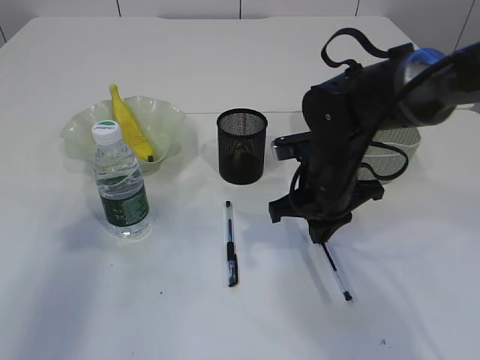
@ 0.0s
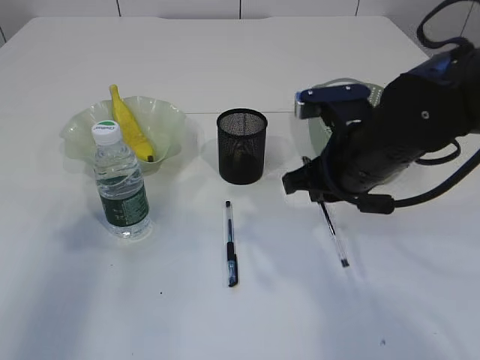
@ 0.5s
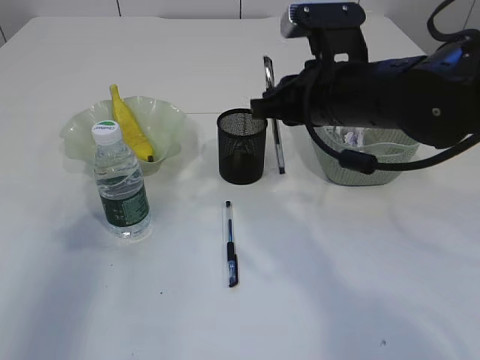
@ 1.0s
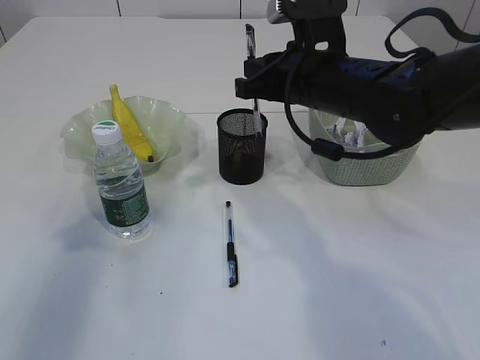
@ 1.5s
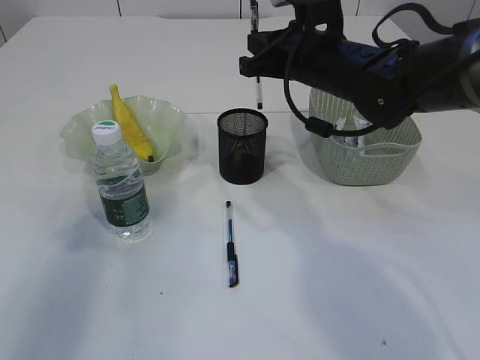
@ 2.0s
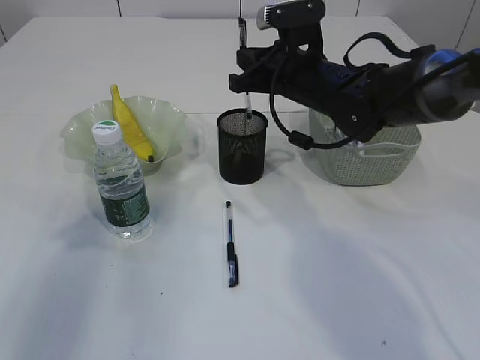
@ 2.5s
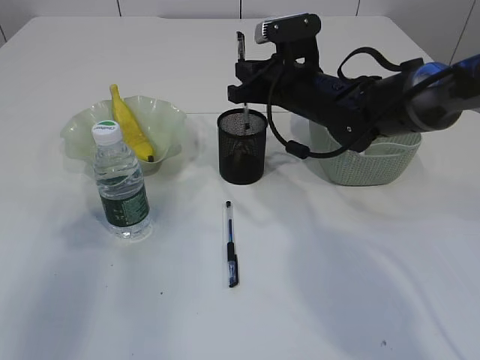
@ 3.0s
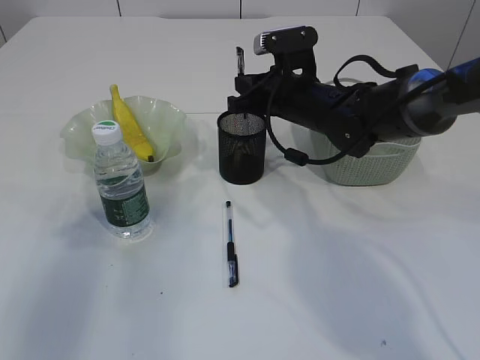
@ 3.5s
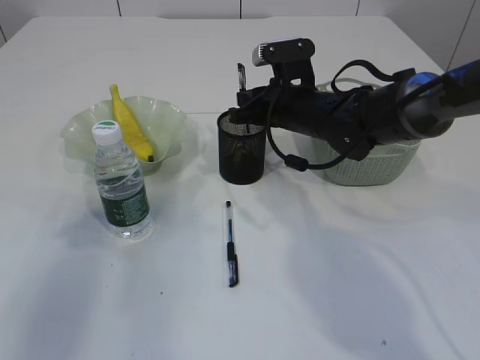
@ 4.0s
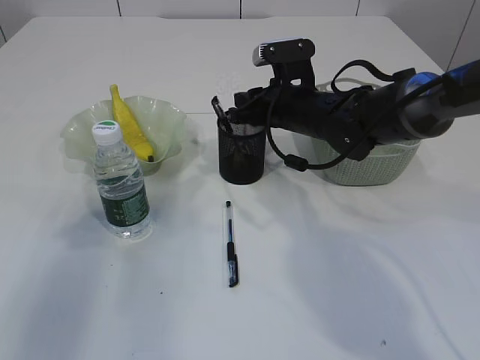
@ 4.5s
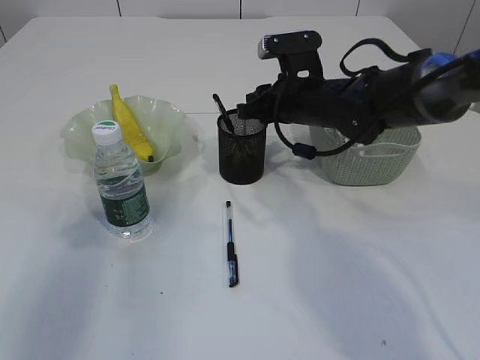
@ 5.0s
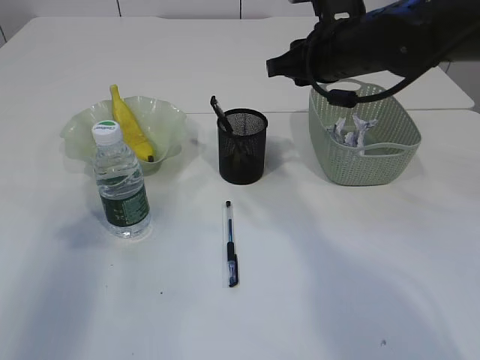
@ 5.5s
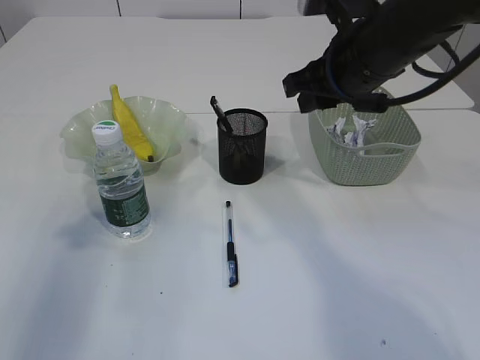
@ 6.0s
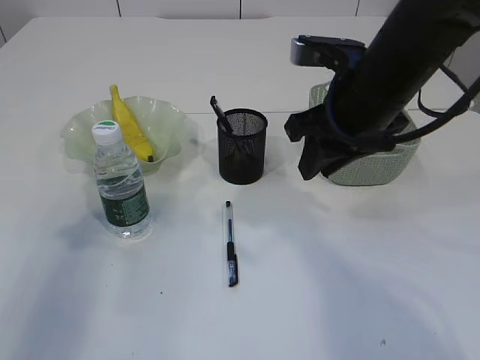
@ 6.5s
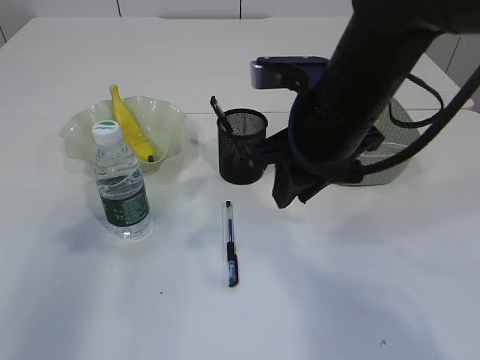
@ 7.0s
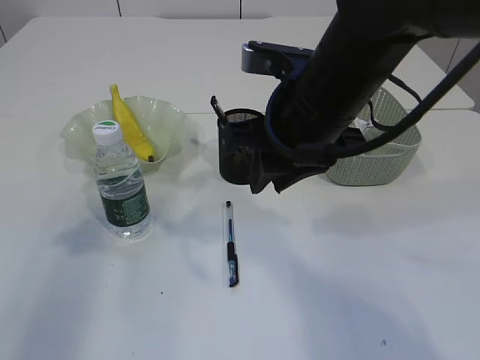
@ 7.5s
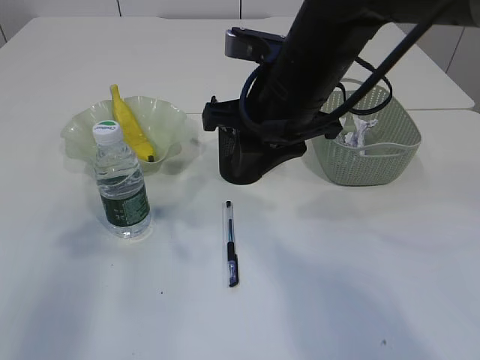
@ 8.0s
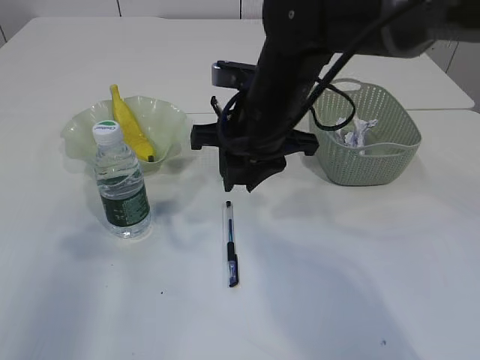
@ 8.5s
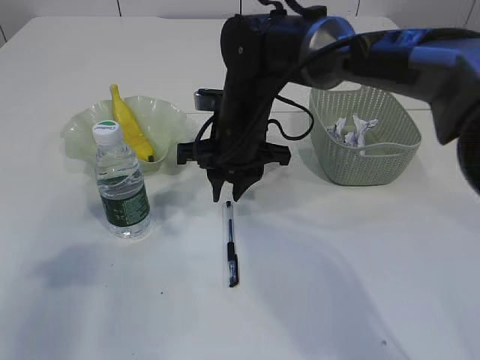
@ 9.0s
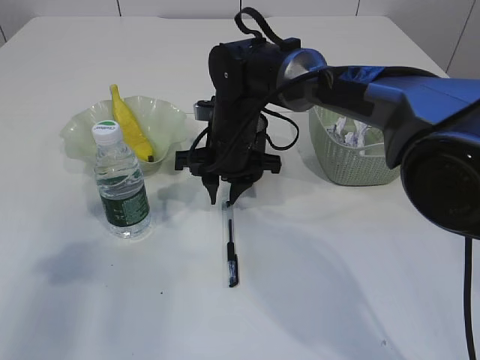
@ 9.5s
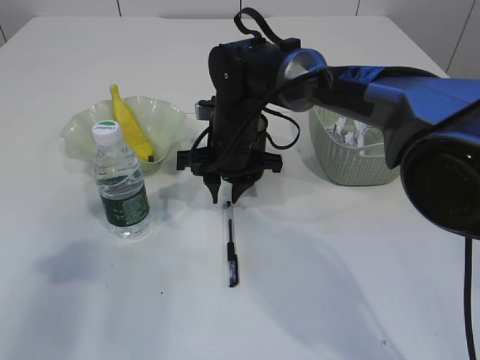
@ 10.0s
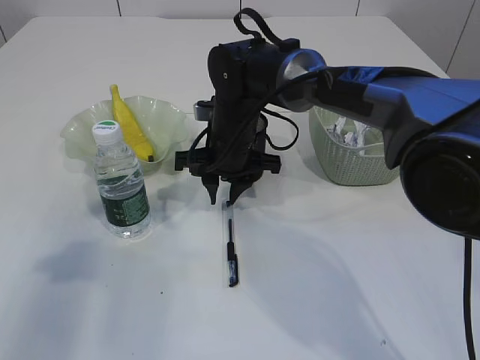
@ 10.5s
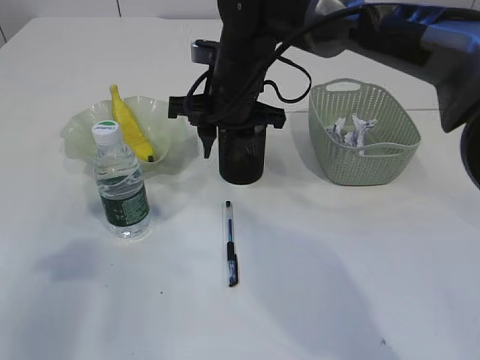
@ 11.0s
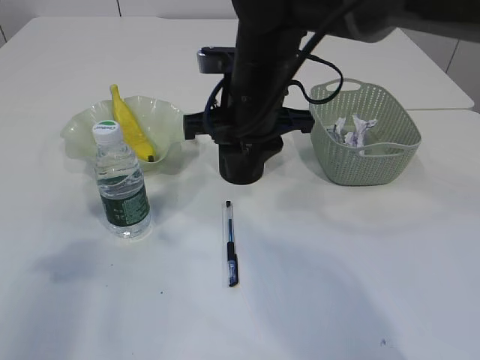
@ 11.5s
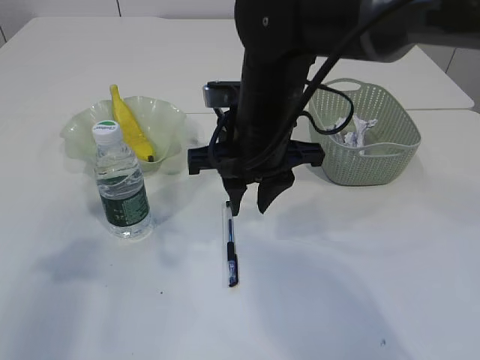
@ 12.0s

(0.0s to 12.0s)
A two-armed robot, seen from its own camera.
Step, 0.5s - 5.0s: Place the pen into the pen holder.
0.0s - 2.0s: The right gripper moves upward and forward, some 10 cm.
2.0s - 4.0s: The right gripper shifts roughly 10 cm downward.
4.0s - 6.0s: The right gripper is displaced upward and backward by approximately 15 cm.
6.0s - 8.0s: The right gripper moves to the left, roughly 10 cm.
8.0s - 10.0s: The right gripper is displaced downward and forward by some 15 cm.
10.0s - 12.0s: The right gripper moves backward and upward, approximately 10 cm.

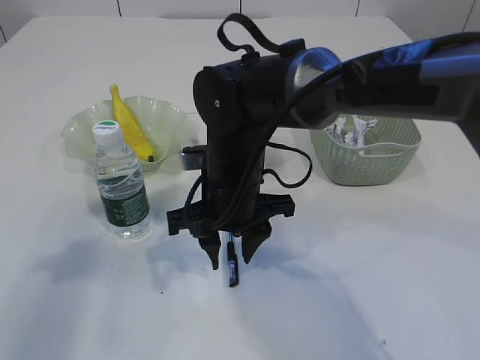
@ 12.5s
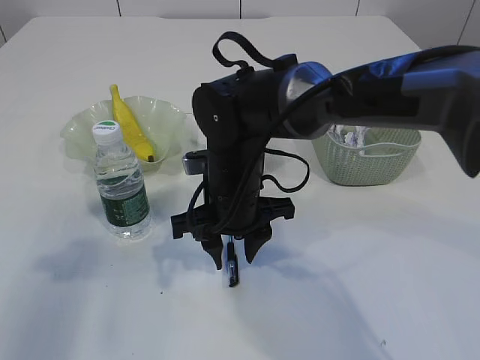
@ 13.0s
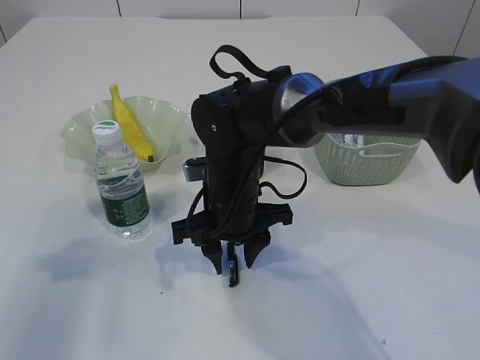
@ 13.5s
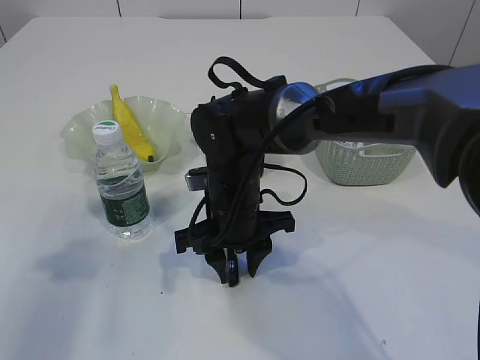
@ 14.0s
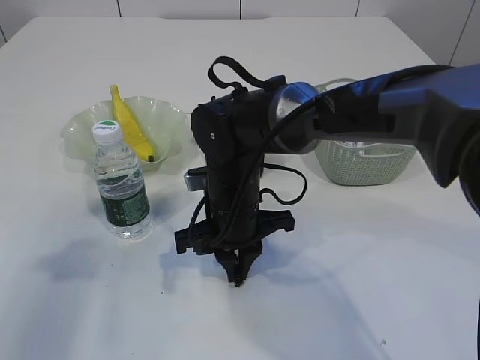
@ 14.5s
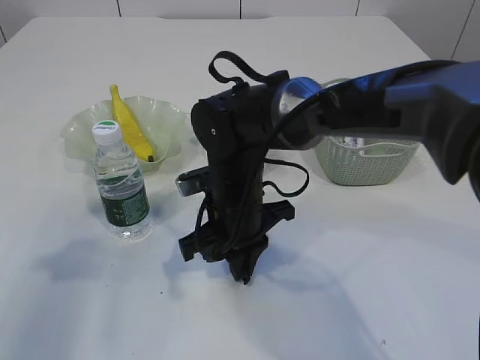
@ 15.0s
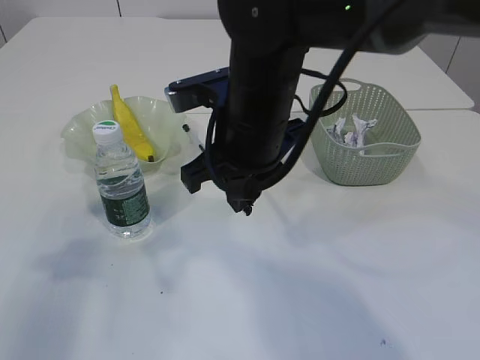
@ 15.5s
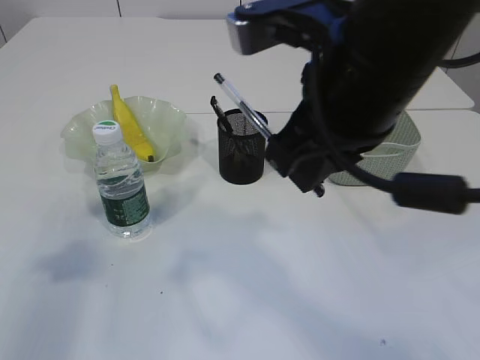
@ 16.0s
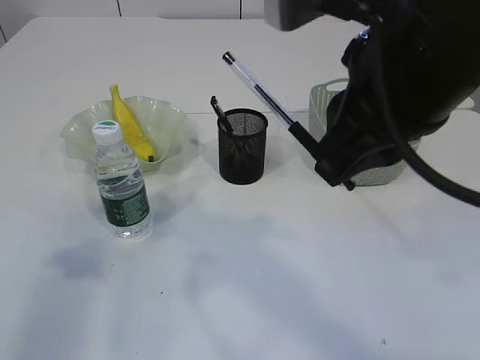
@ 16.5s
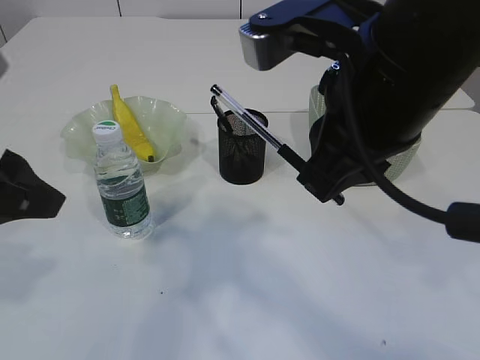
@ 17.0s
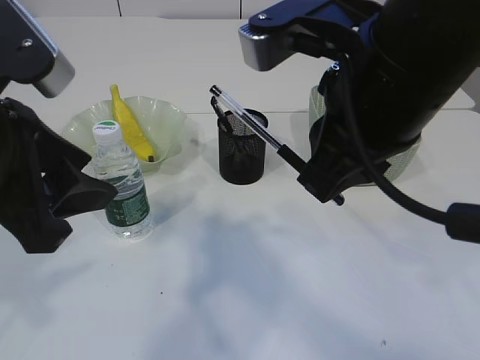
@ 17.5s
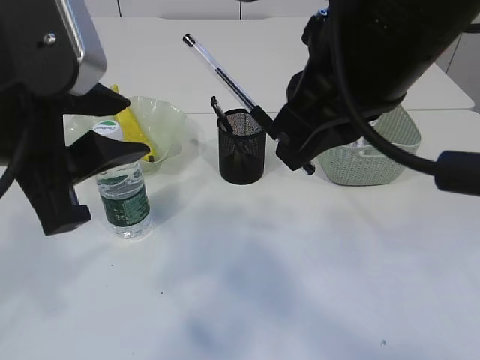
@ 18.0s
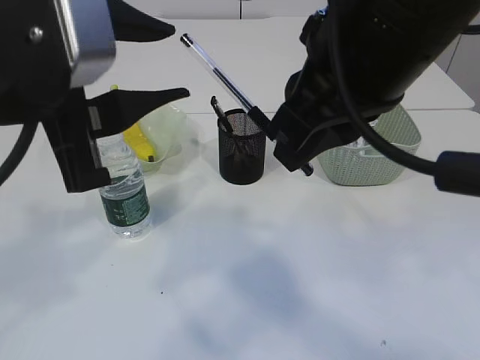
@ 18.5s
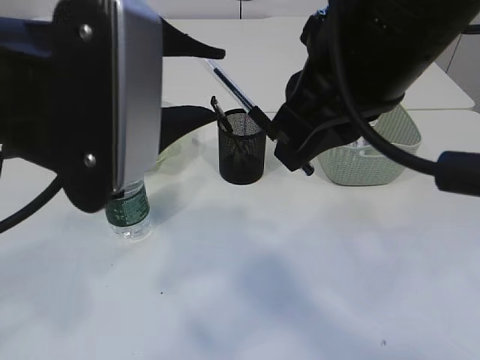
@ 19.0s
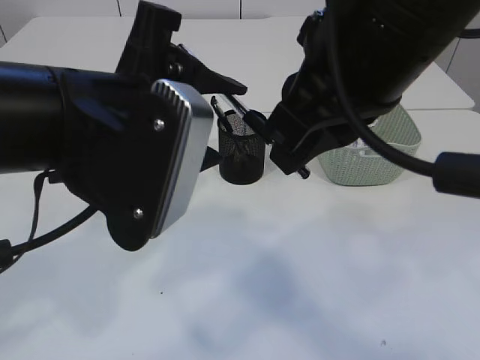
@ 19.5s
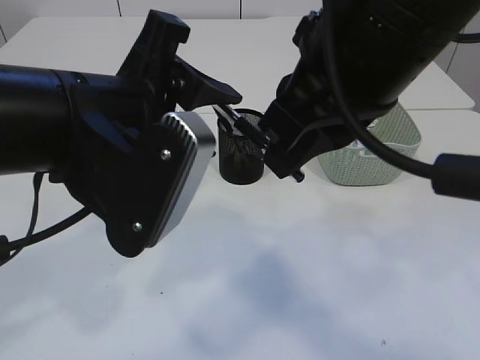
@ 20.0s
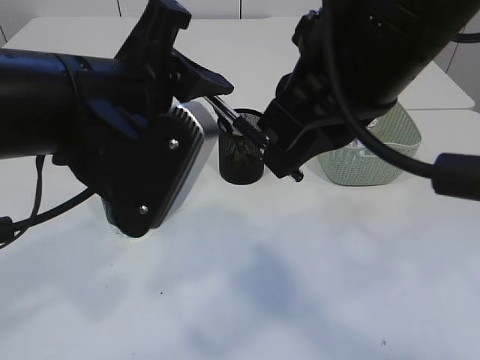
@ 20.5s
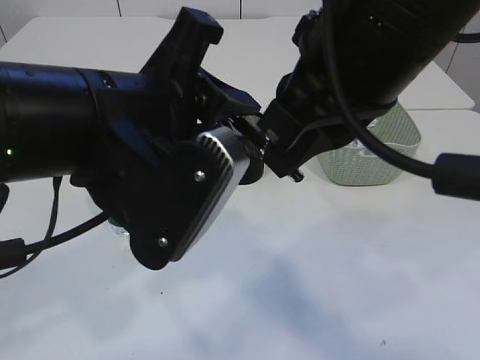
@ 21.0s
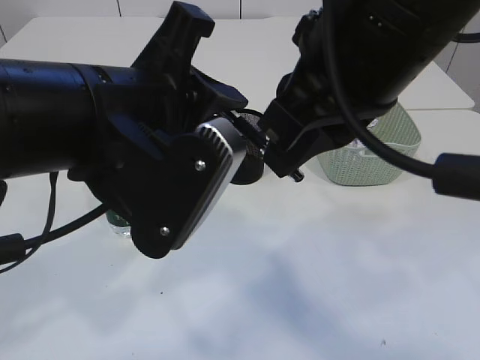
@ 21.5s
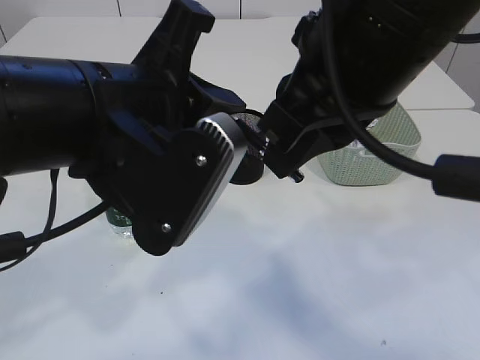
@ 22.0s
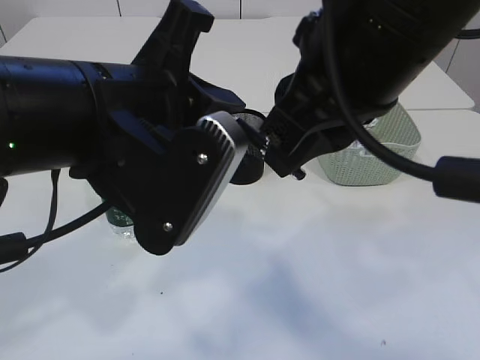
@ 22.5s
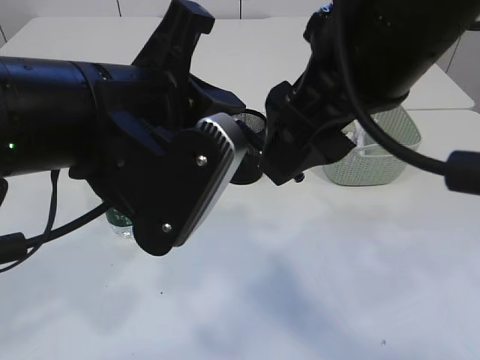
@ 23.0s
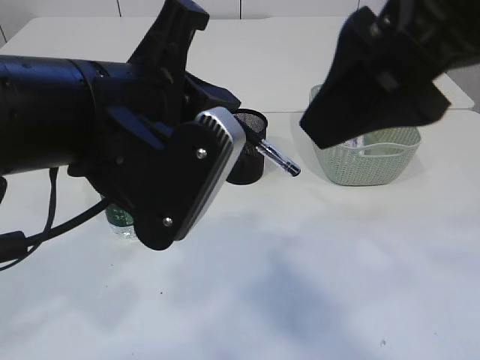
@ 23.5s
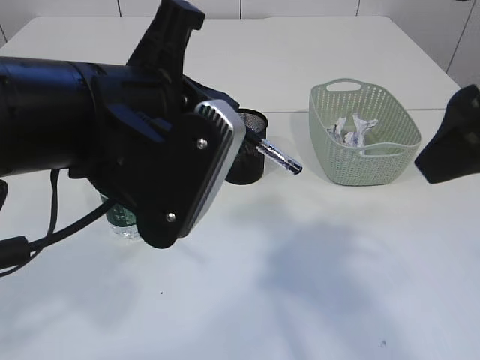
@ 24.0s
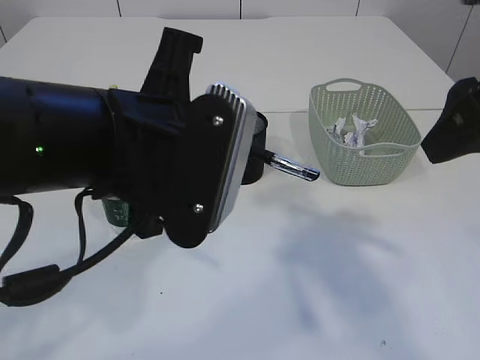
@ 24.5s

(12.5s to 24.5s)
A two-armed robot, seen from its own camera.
Step, 12.5s - 15.0s: Pick up the pen with right arm.
Step, 15.5s - 23.5s: transfer the pen to the left arm.
12.5s - 14.5s: The right gripper closes up.
14.5s - 16.5s: The right gripper shifts roughly 30 cm upward, backward and to the right.
16.5s - 18.5s: The left gripper is displaced to the right by some 15 cm.
18.5s - 20.5s: The left gripper ends up approximately 5 cm from where it was.
20.5s - 22.5s: The left gripper closes its fingers.
22.5s - 24.5s: The right gripper is displaced to the right by approximately 15 cm, and opens up.

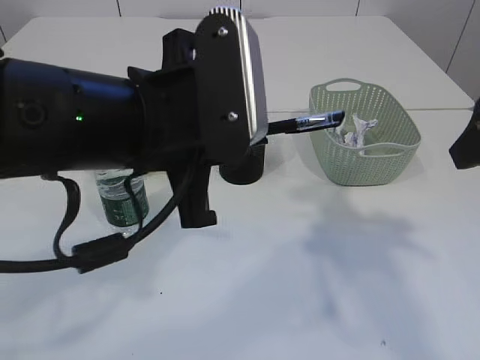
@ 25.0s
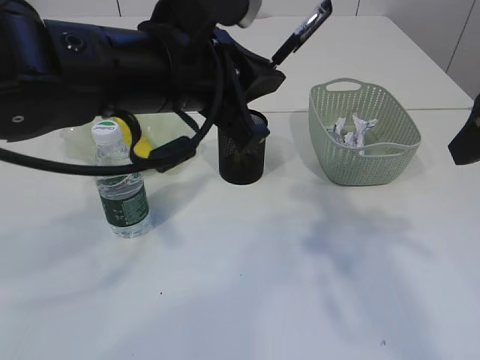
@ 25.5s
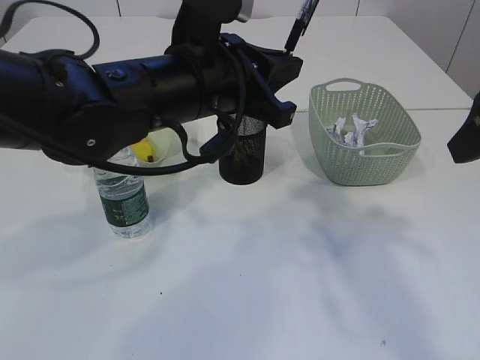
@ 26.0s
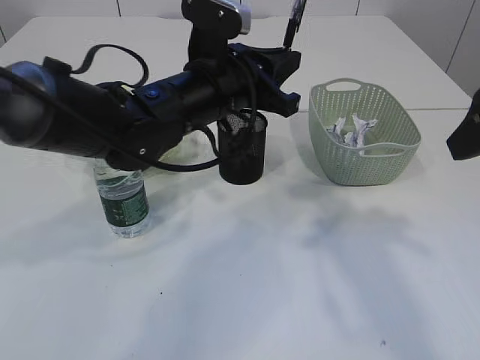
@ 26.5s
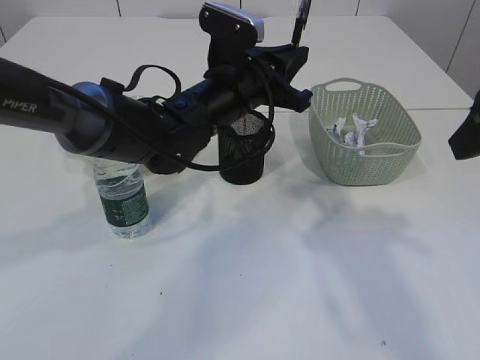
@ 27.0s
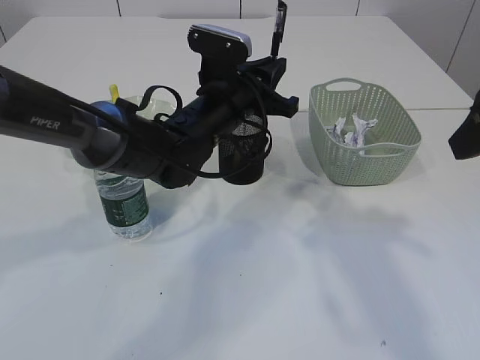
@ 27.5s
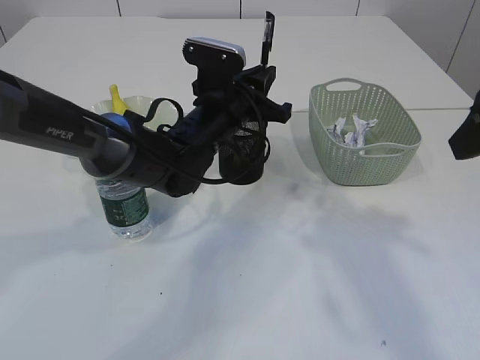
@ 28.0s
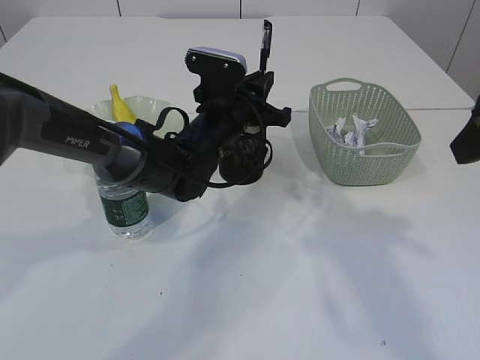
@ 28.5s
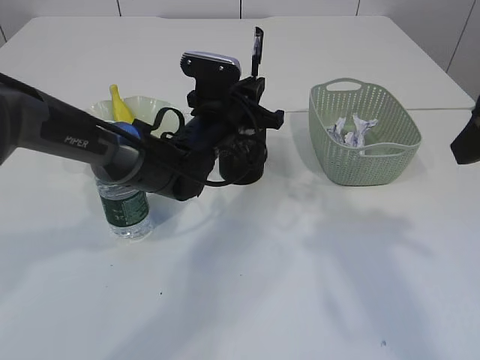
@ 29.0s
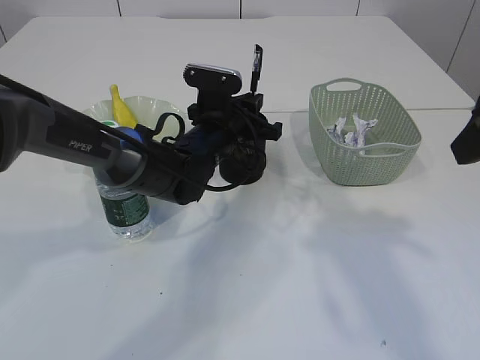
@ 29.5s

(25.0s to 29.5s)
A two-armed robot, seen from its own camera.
25.0s - 27.0s: The left gripper shifts some 20 cm forward and downward.
27.0s - 29.5s: The left gripper heads downward, covering roughly 10 cm.
